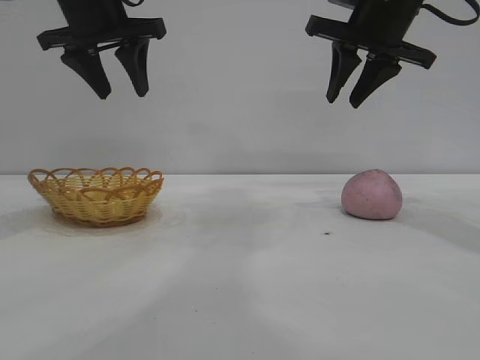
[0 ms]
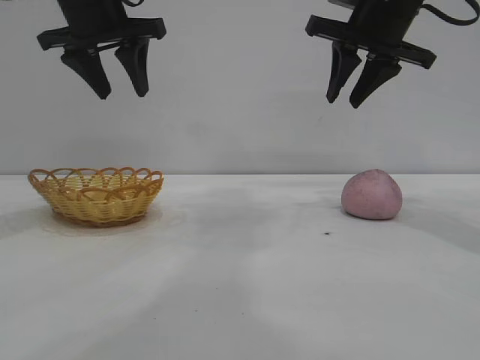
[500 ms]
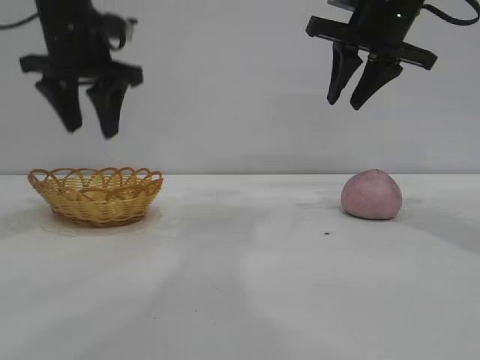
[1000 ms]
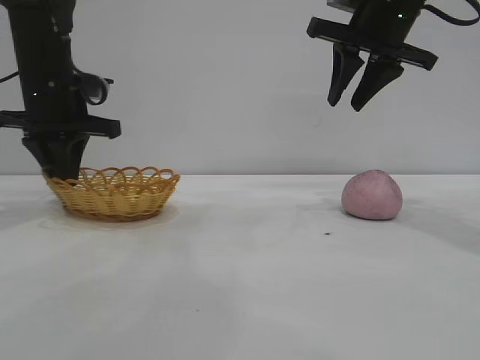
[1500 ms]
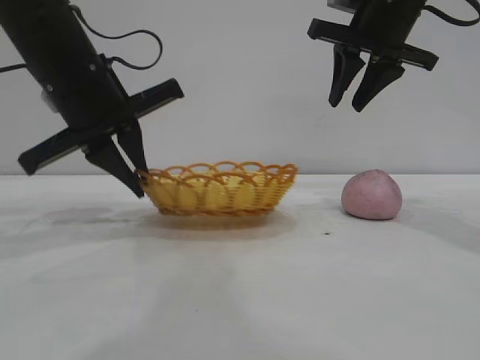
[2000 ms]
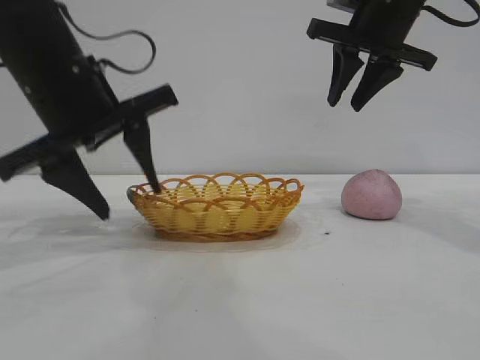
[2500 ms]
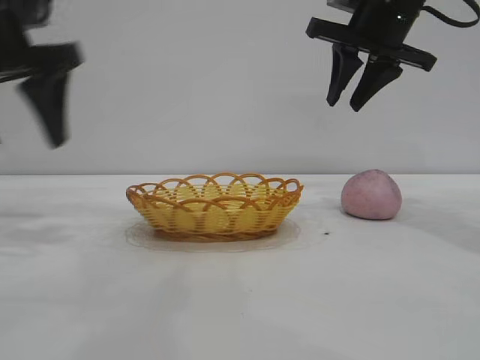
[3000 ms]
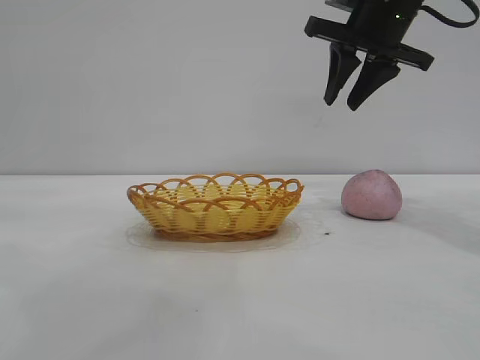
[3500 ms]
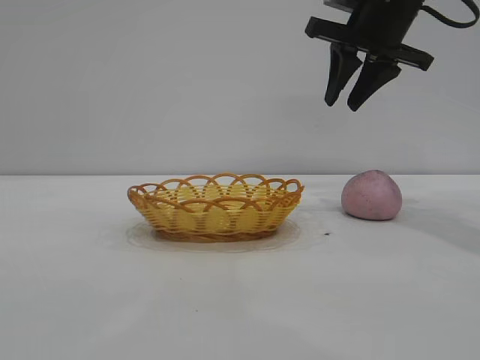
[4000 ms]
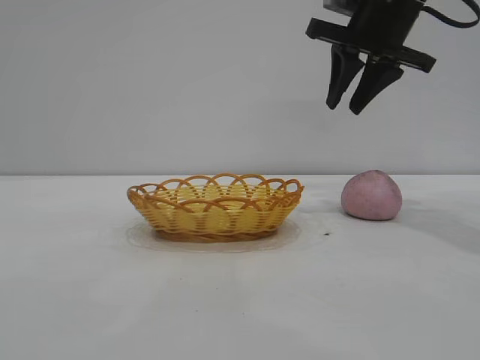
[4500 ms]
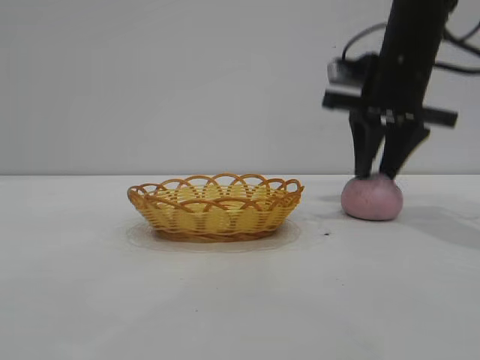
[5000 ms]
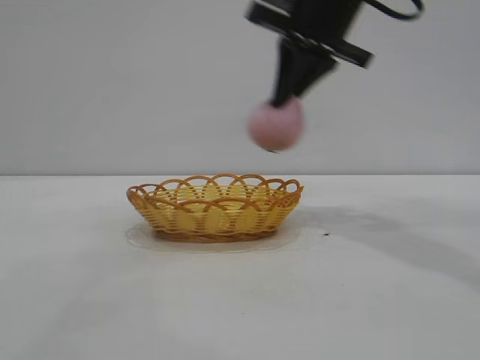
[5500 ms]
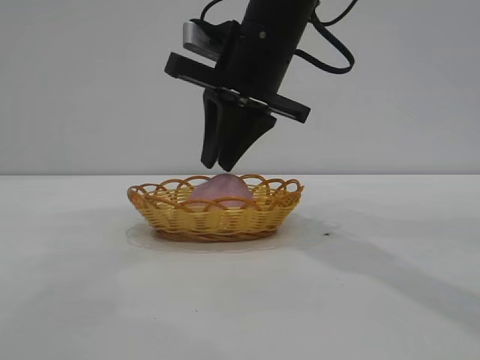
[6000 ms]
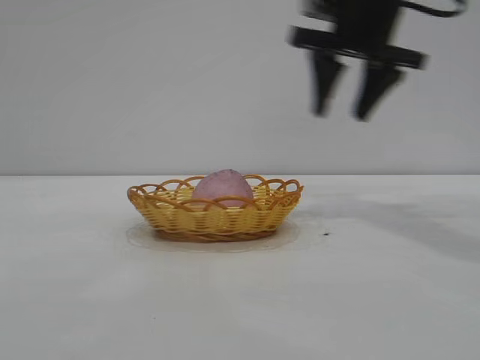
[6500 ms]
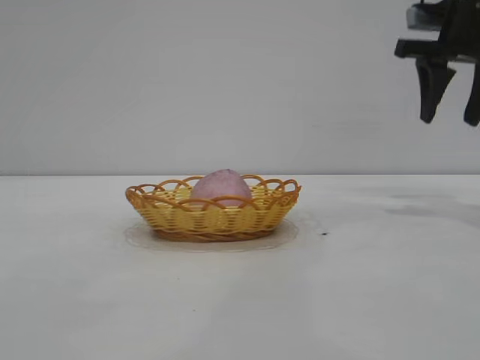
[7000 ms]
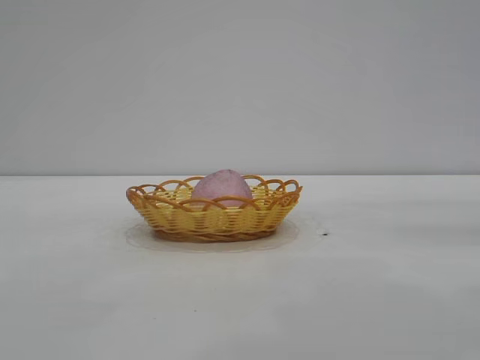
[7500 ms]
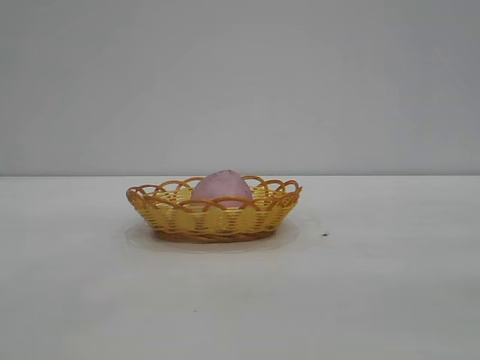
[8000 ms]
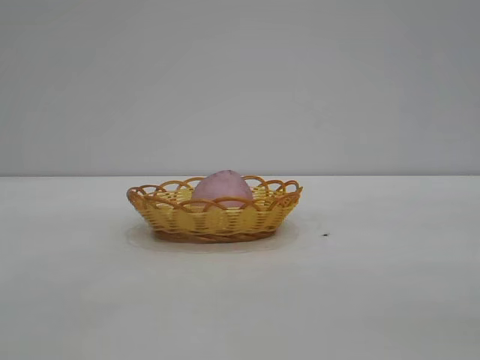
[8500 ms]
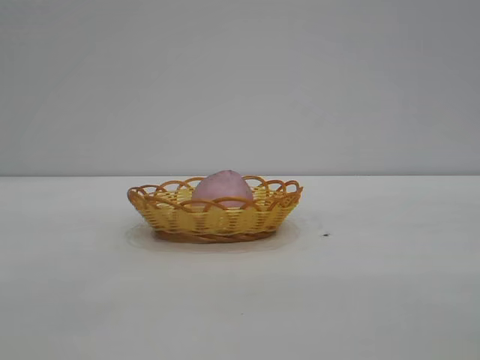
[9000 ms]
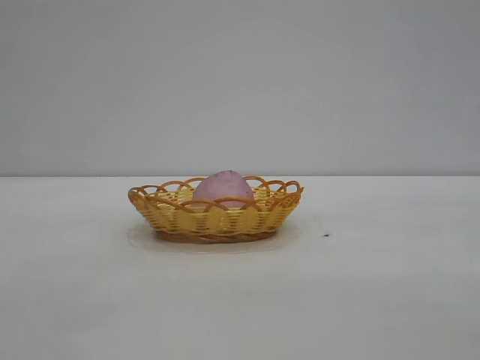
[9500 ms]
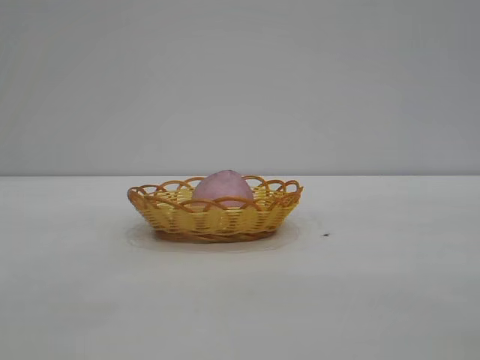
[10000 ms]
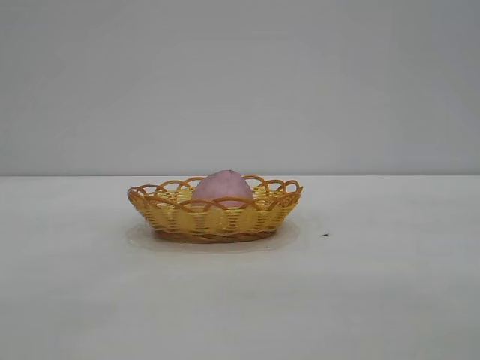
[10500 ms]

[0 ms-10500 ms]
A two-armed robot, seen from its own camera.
Task of the whole recording: pick up the peach and put it into the basket.
Step, 0 ms to 2500 ms: Move the basket to the center of view.
Step, 3000 ms to 5000 ms: Pick up the peach.
Step, 5500 ms to 6000 ms: place the peach into the basket.
